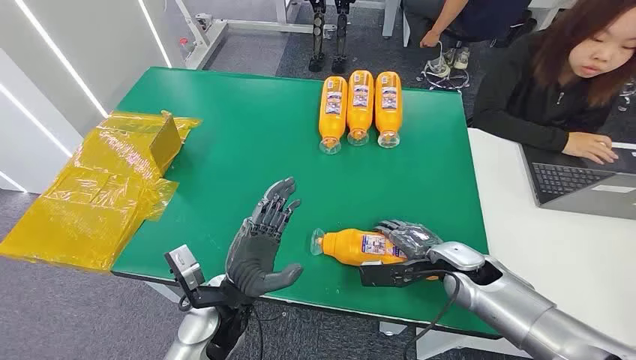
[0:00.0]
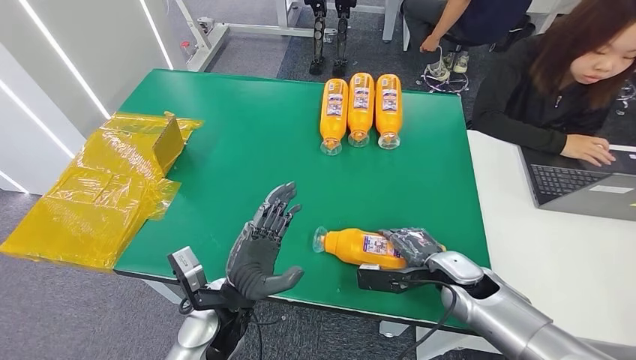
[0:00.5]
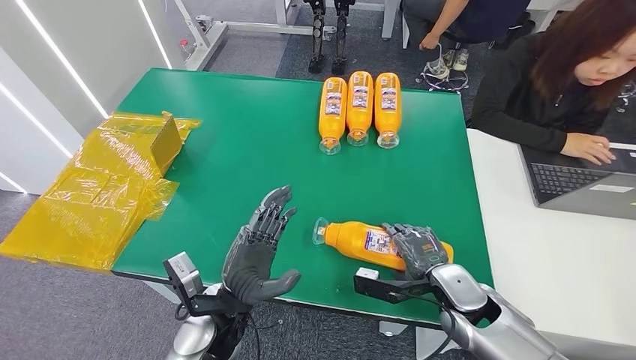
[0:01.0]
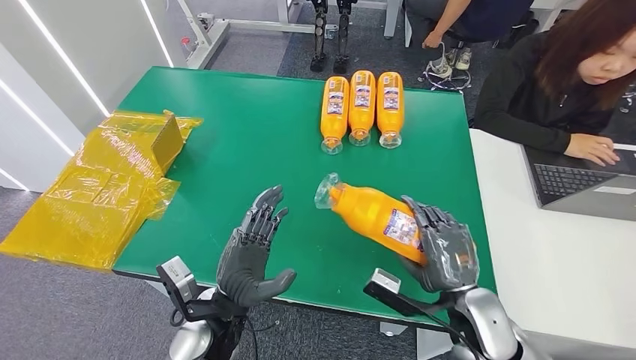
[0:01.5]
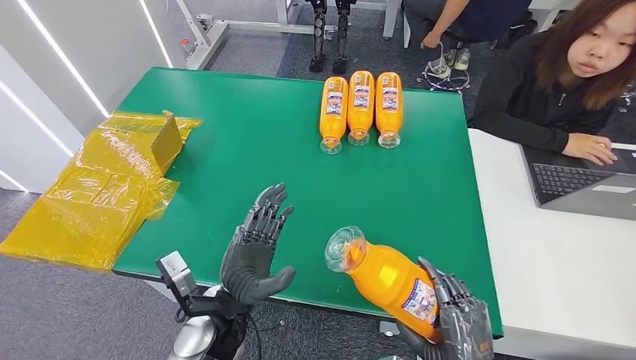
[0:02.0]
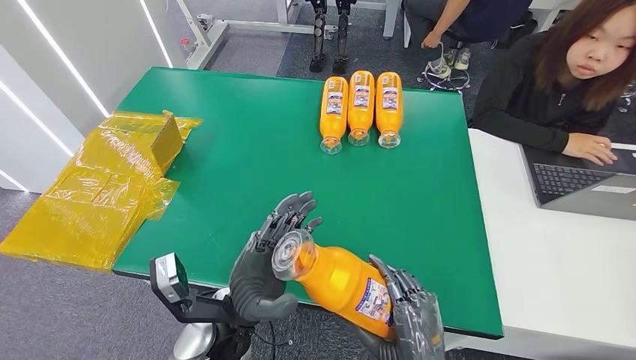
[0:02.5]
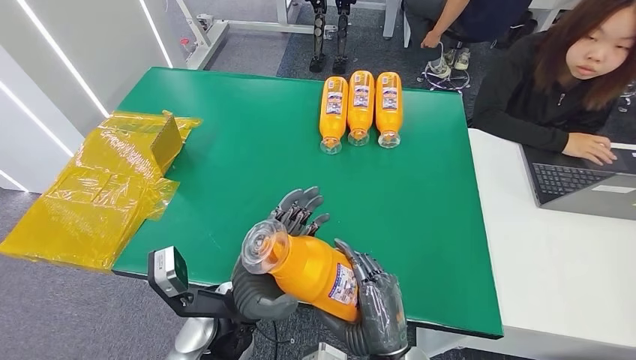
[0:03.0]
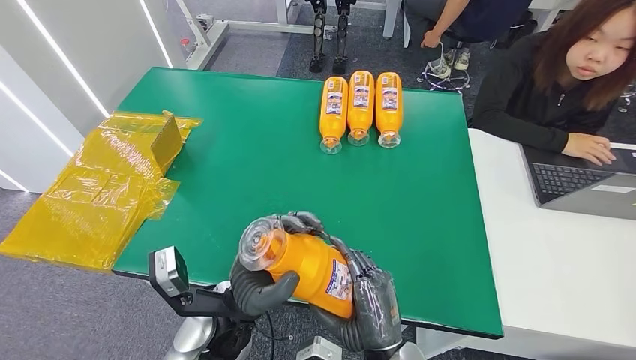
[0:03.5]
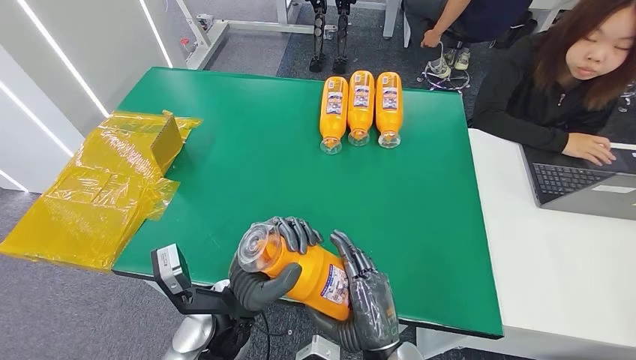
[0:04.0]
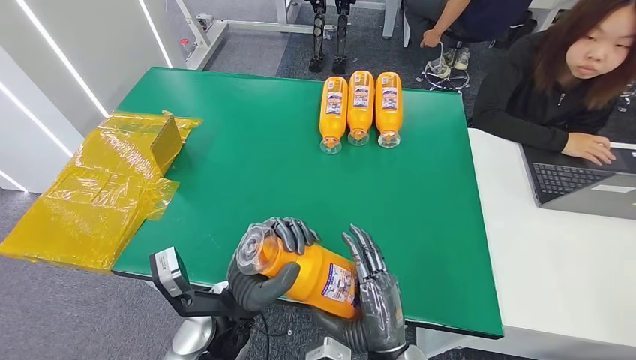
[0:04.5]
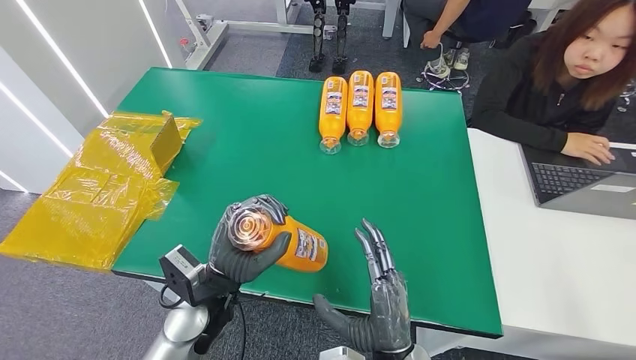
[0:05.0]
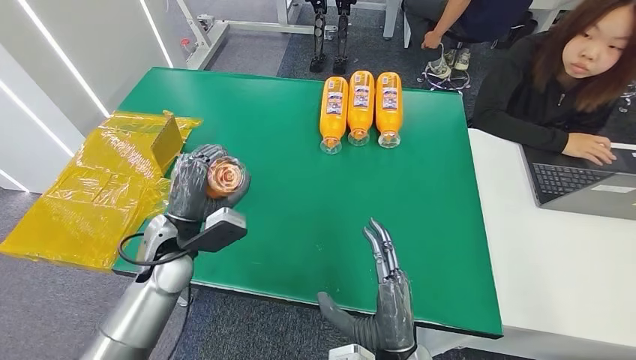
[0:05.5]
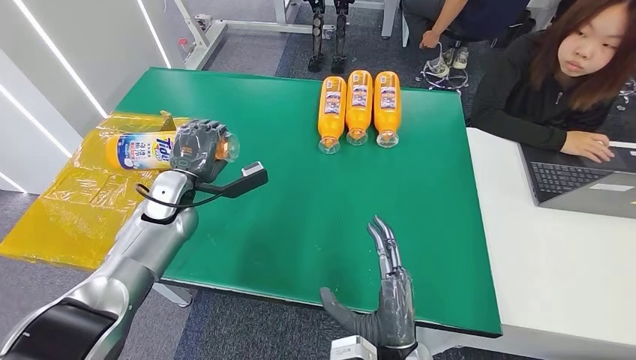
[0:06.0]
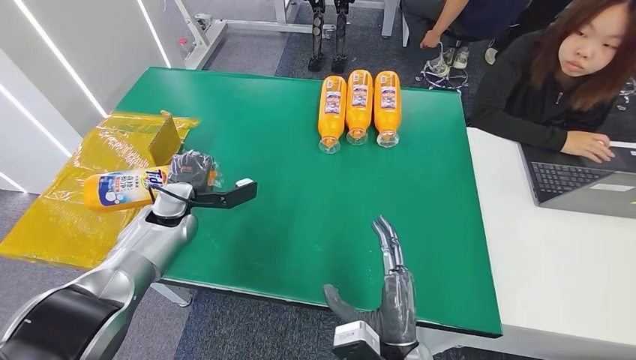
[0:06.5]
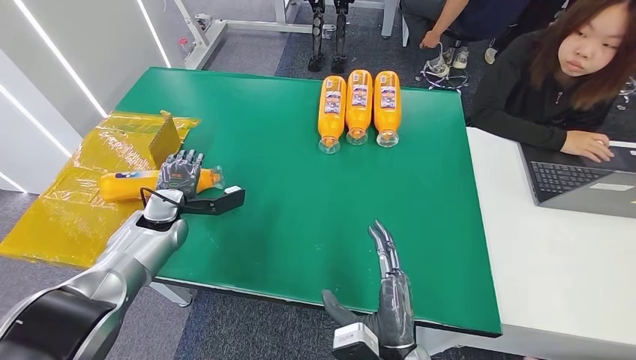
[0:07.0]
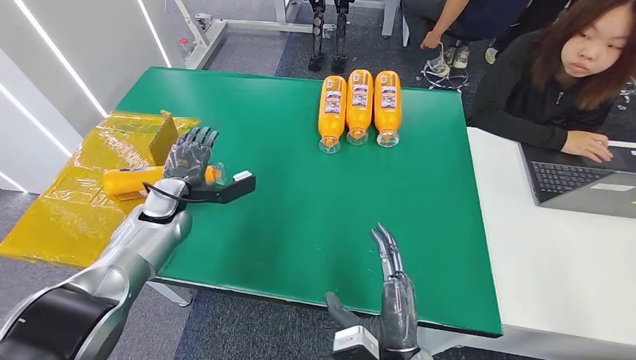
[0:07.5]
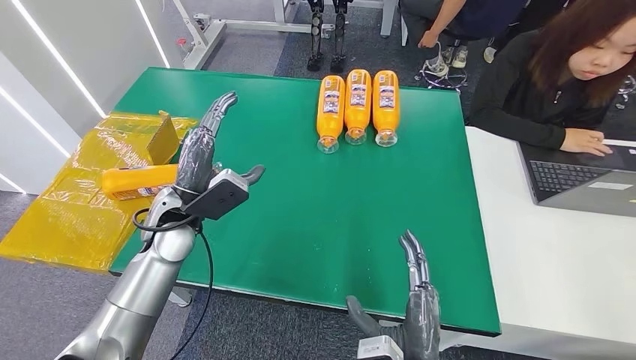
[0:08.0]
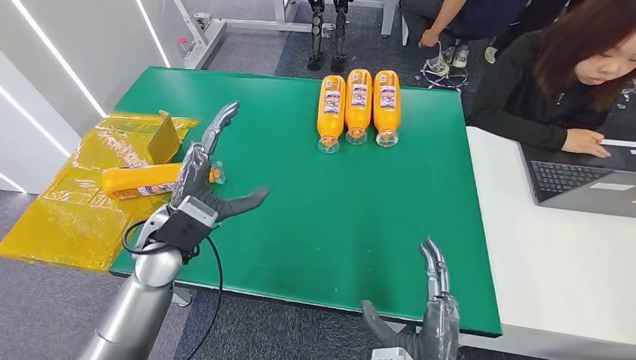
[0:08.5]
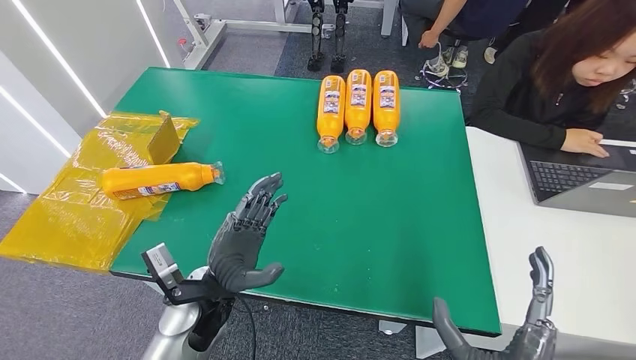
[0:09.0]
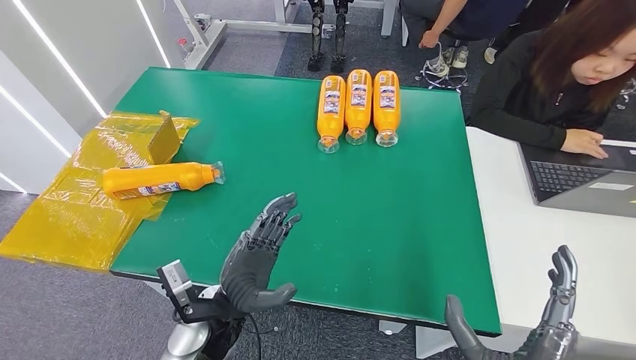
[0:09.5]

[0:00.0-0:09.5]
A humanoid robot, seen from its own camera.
Step, 0:00.0 to 0:03.0: Pick up the bottle from the table.
Step, 0:03.5 to 0:09.5: Turn the bottle to the front side.
0:02.0 to 0:04.0: The right hand moves to the left, roughly 10 cm.
0:04.0 to 0:05.5: The left hand moves to the left and forward, approximately 15 cm.
0:05.5 to 0:07.5: The left hand shifts roughly 10 cm forward and to the left.
0:07.5 to 0:09.5: The right hand goes some 15 cm to the right, backward and upward. The left hand heads backward and to the right, covering about 25 cm.
